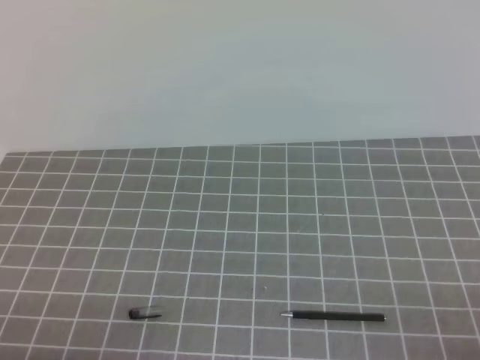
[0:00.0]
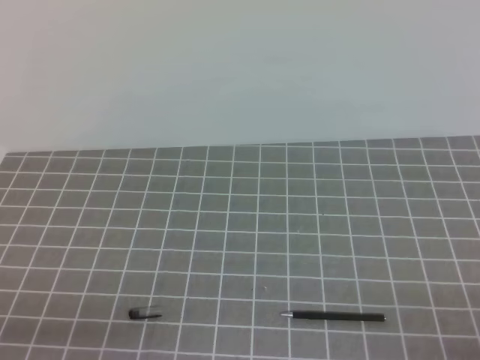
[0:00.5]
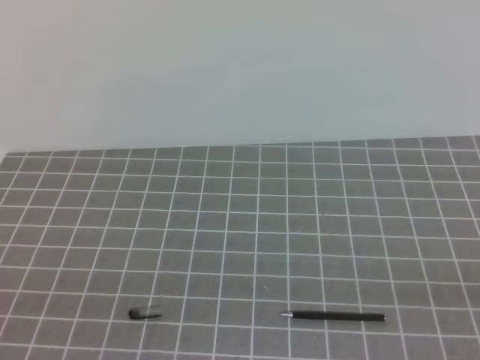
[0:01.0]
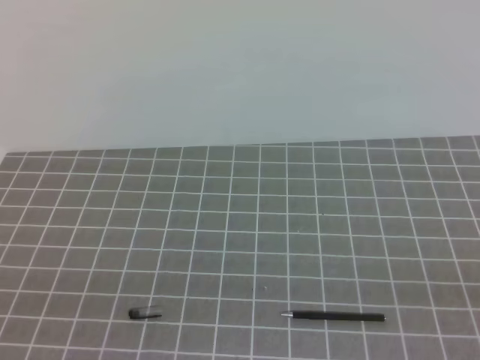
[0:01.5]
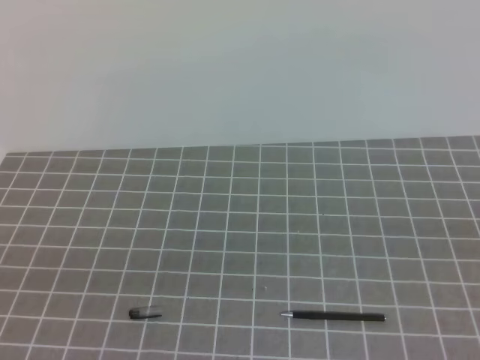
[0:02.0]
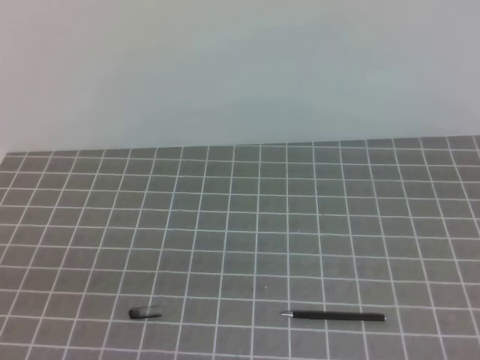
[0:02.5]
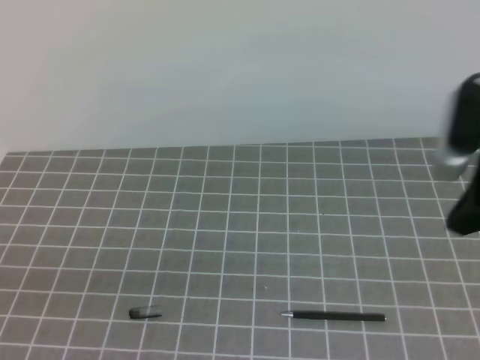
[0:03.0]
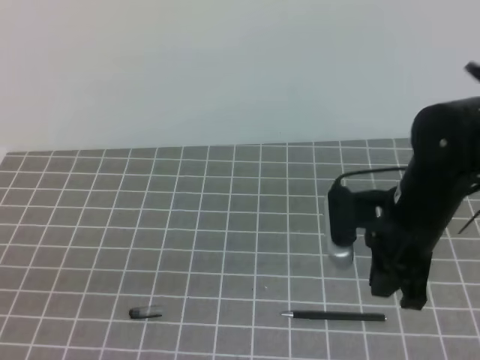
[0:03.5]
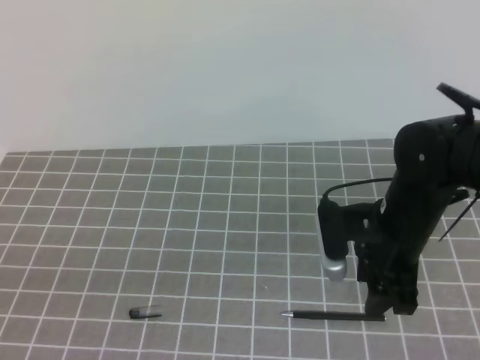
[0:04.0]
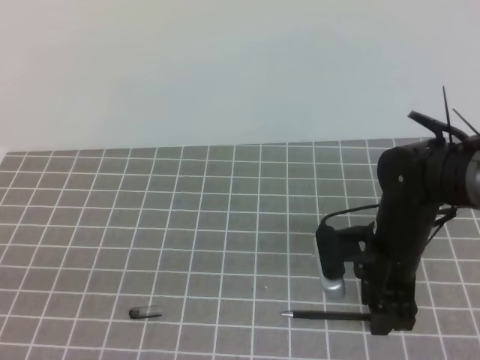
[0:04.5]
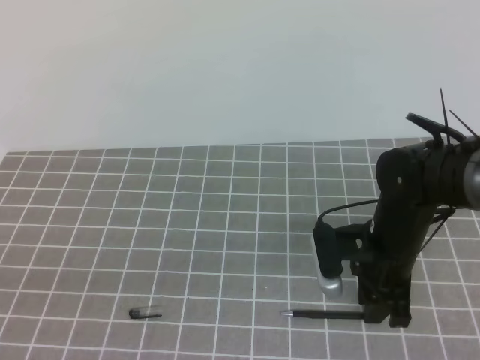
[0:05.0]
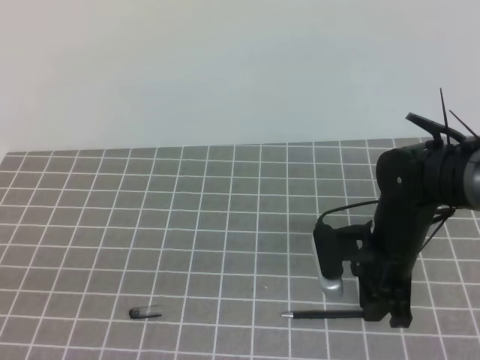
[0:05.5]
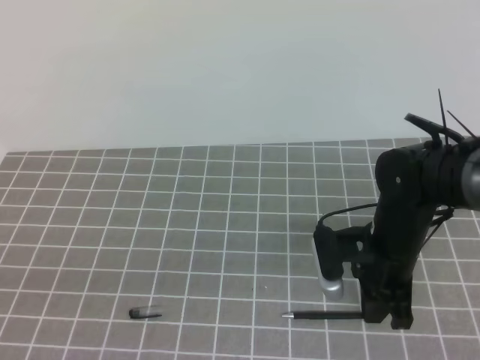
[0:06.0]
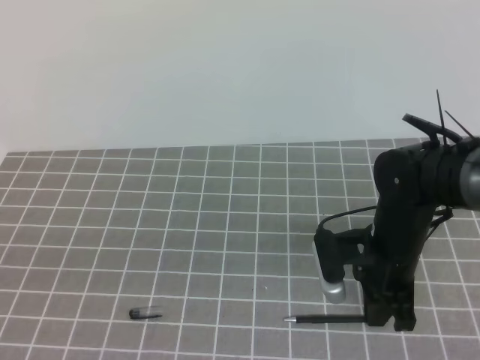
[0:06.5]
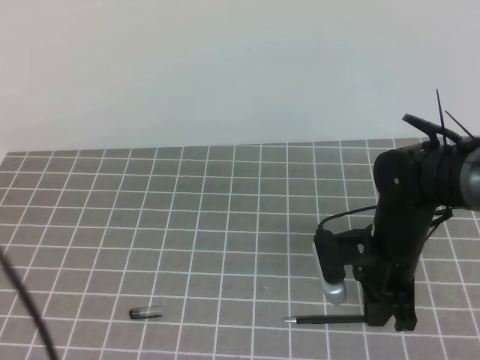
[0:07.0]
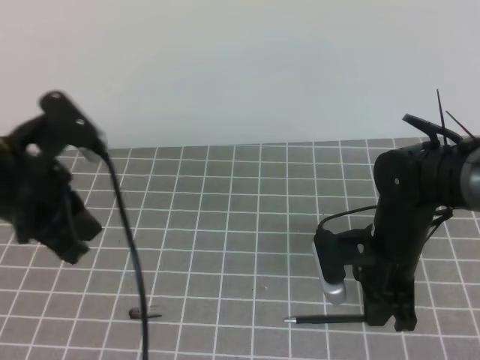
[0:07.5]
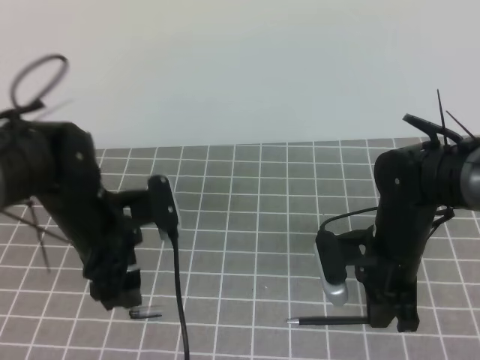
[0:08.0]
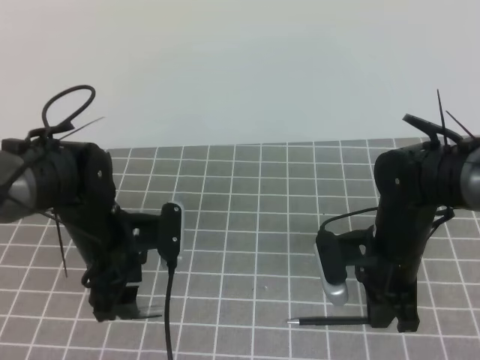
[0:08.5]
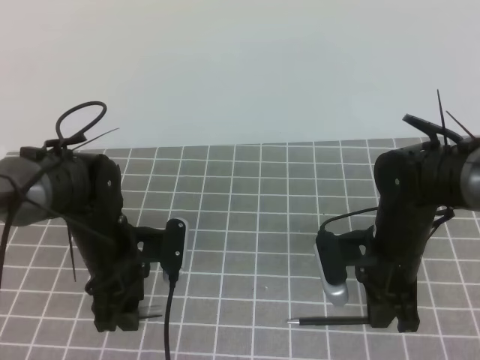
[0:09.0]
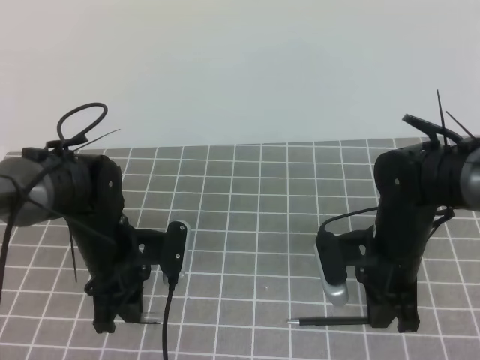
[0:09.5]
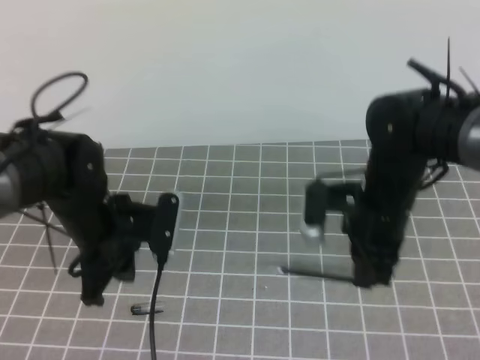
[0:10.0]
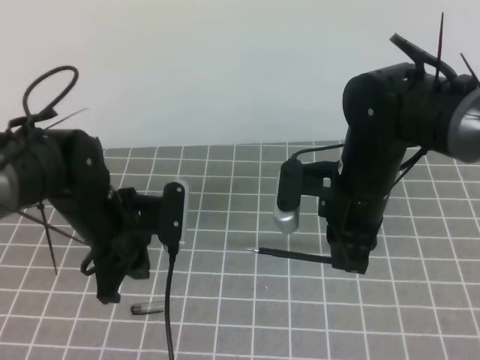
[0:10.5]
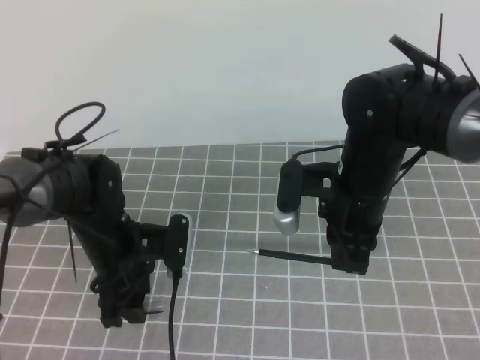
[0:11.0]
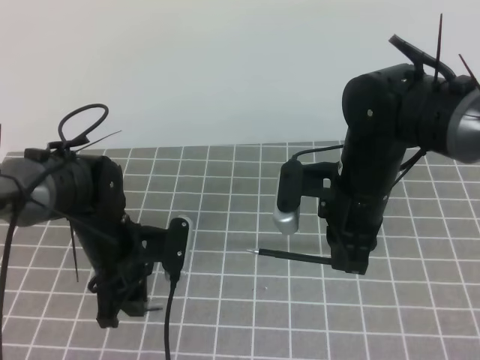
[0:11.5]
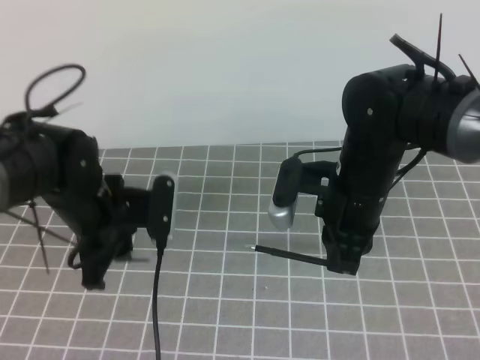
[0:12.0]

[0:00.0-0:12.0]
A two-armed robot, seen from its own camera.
Task of the whole recording: on the grey tablecloth, hold the pen cap in one hand and the pen in the other, then cover the pen cap.
0:02.0 to 0:04.0: The right gripper shifts some 40 cm forward, downward and to the left, and opens up.
0:04.0 to 0:06.0: The right gripper closes up.
0:06.0 to 0:08.0: The left gripper moves forward and to the right, some 30 cm, and opens its fingers.
0:08.0 to 0:10.0: The left gripper closes; the right gripper heads upward, covering approximately 5 cm.
0:10.0 to 0:12.0: The left gripper opens and closes again.

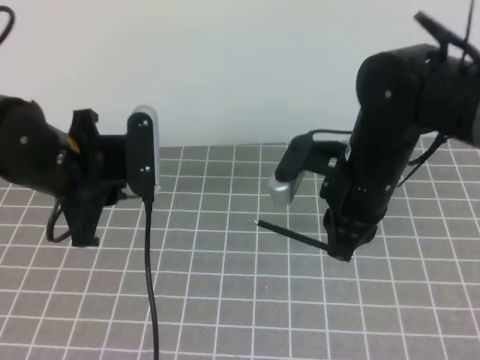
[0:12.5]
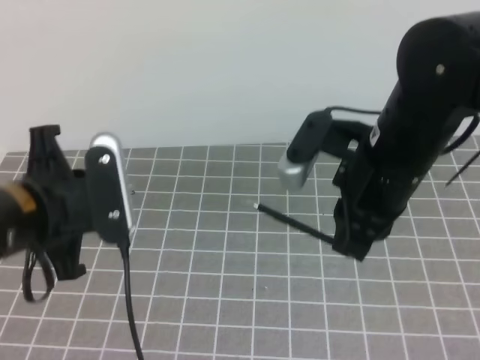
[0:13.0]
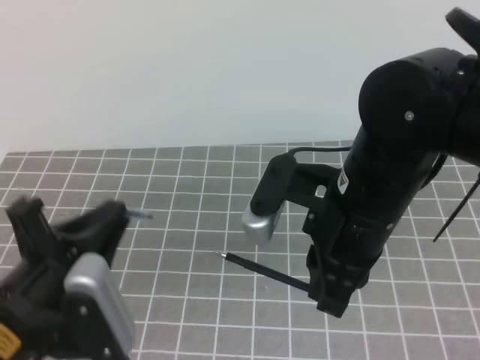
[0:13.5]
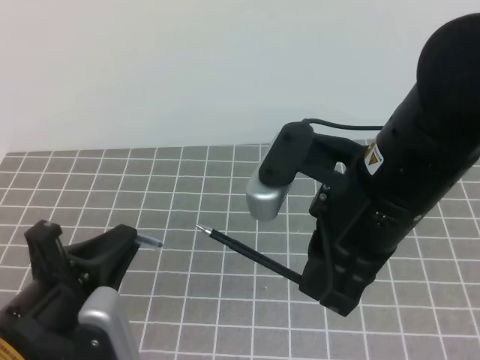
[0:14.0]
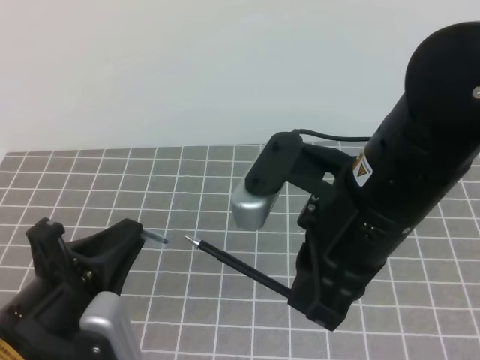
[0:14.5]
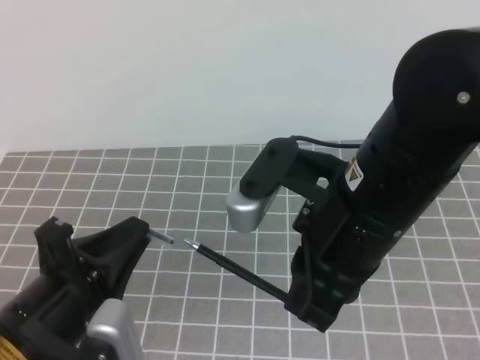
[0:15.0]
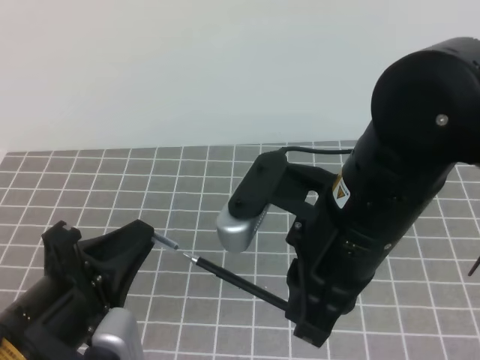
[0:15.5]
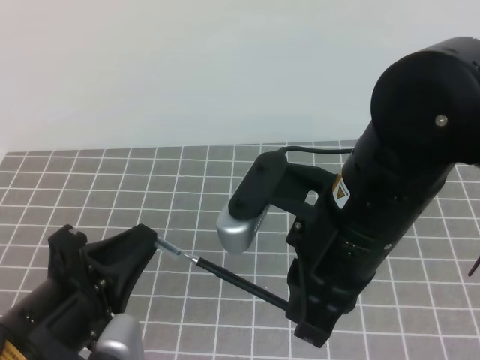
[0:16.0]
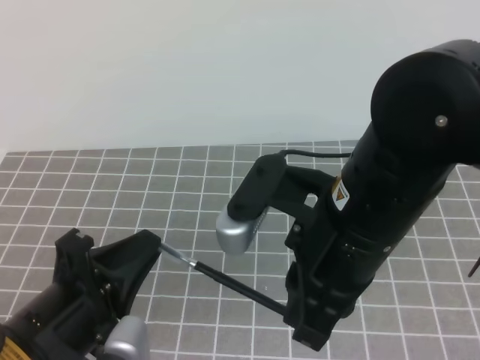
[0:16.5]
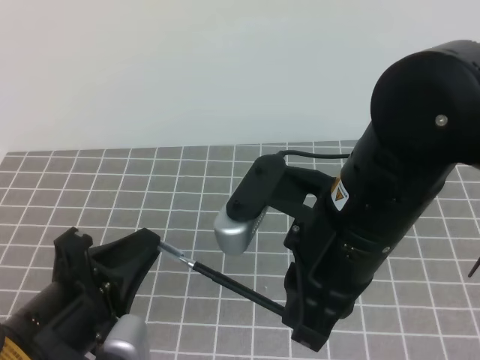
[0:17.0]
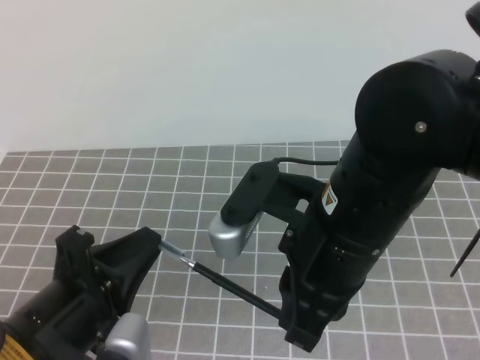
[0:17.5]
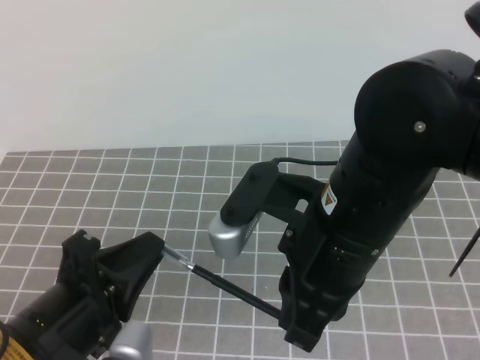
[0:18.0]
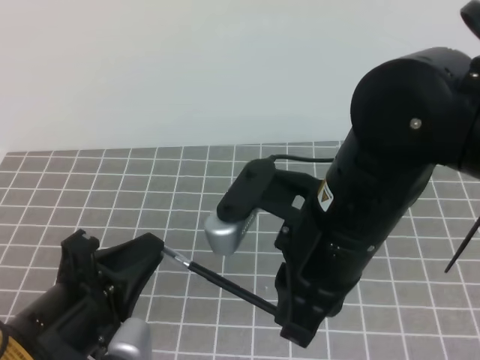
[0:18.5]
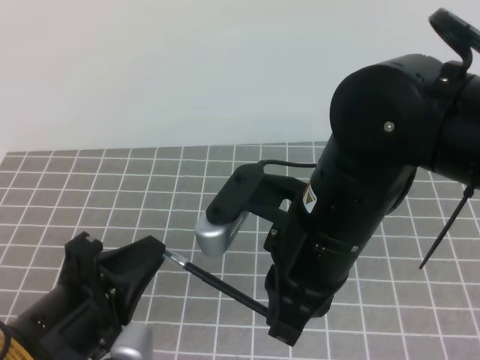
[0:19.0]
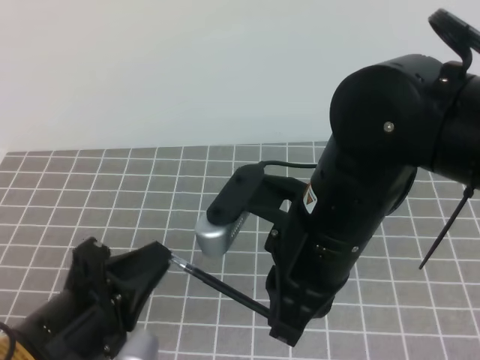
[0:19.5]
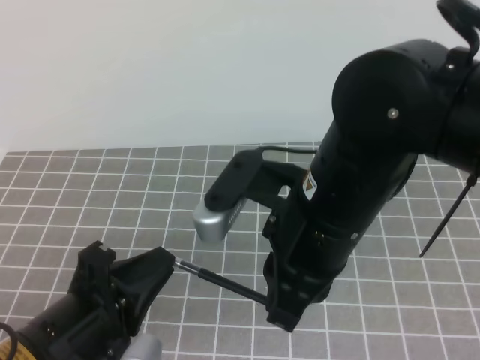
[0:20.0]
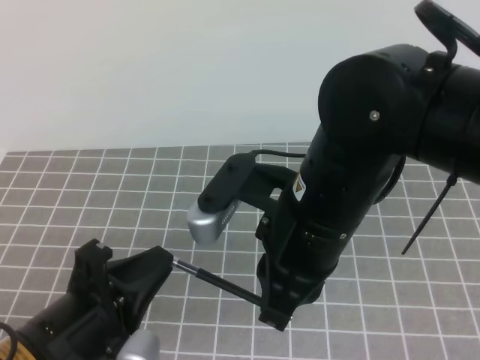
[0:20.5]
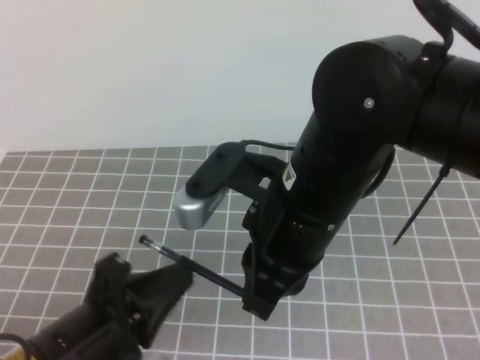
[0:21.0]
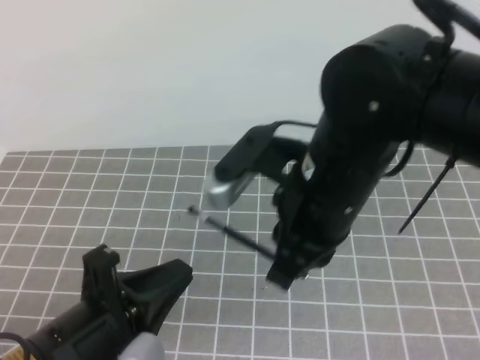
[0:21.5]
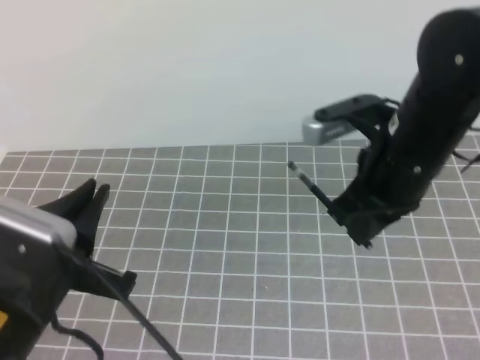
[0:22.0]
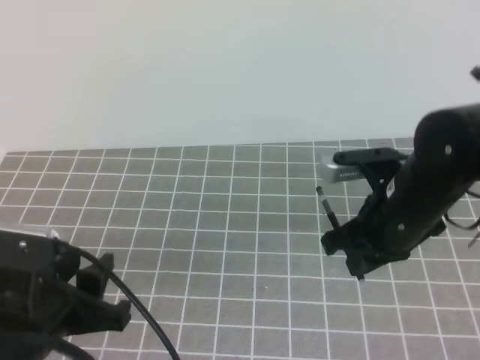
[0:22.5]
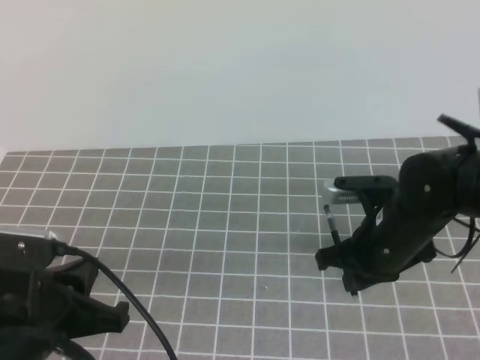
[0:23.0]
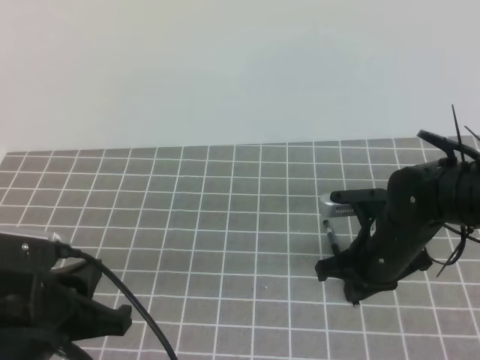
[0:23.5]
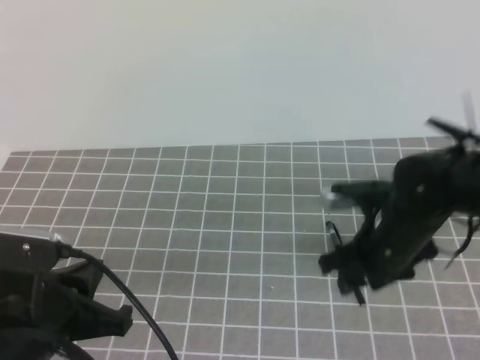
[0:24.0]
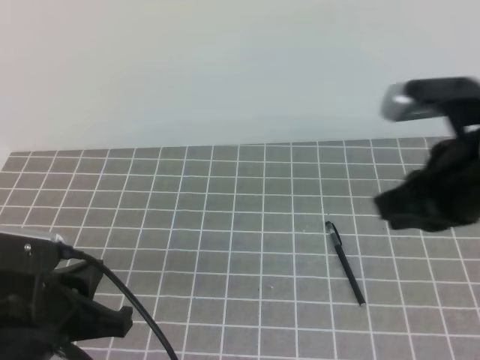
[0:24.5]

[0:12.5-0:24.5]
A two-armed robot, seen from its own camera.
Task of the whole recording: on the grey tablecloth, hold the pen cap in one hand and the pen in the other, then cover the pen cap.
0:12.5 to 0:14.5: The right gripper is displaced backward and upward by approximately 15 cm; the left gripper goes roughly 15 cm backward.
0:14.5 to 0:16.5: There are only small adjustments of the grippers.
0:16.5 to 0:18.5: The two grippers keep their place.
0:18.5 to 0:20.5: The grippers stay close to where they were, moving slightly.
0:20.5 to 0:22.5: The left gripper opens up, while the right gripper is displaced to the right, downward and forward by roughly 15 cm.
0:22.5 to 0:24.5: The left gripper closes its fingers. Meanwhile the right gripper is displaced upward and backward by roughly 10 cm, and opens, then closes once more.

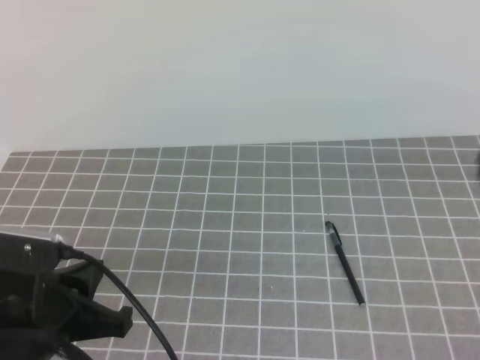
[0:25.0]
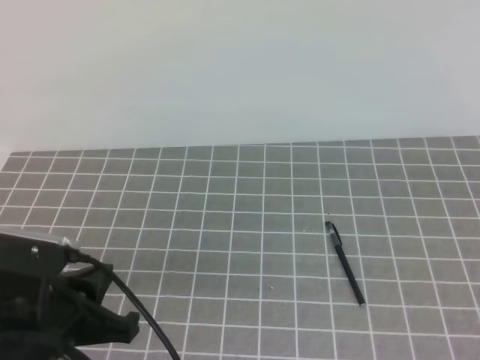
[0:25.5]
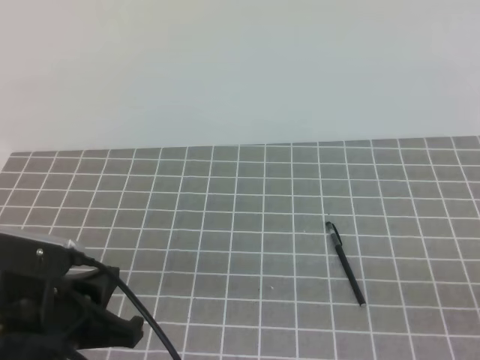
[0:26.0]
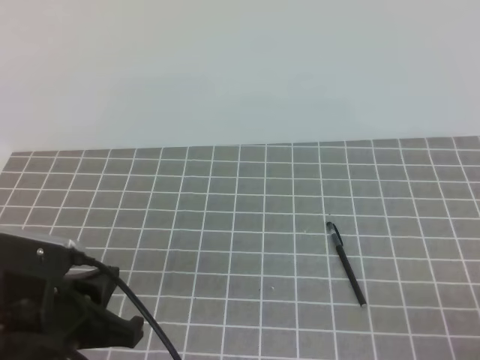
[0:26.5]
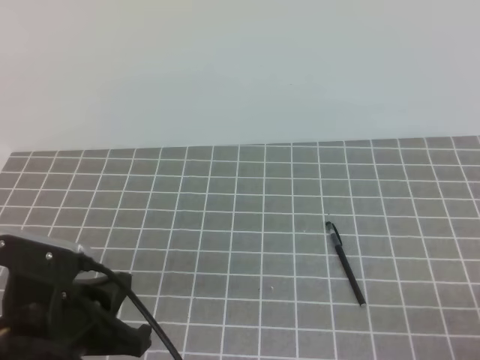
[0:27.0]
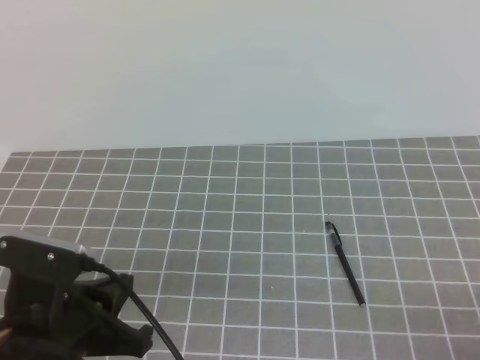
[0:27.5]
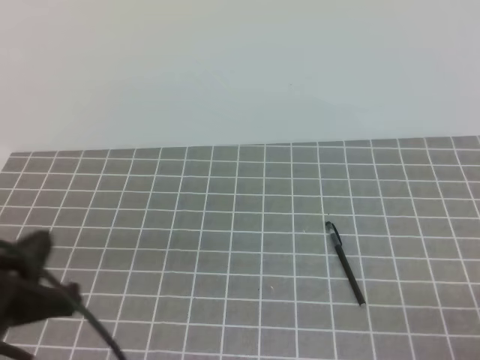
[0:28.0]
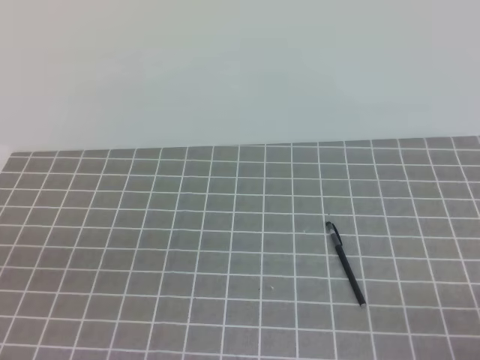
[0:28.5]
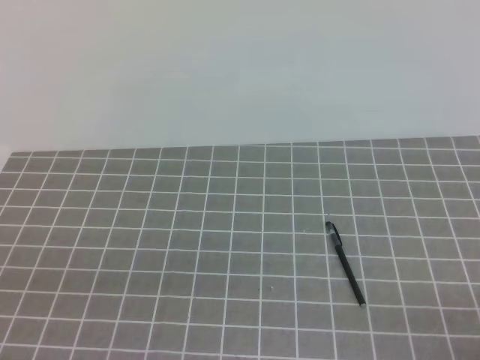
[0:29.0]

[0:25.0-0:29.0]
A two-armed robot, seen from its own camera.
Task of the whole recording: on the grey tablecloth, hold the pen cap in one hand and the pen in the other, then cover the pen cap.
0:25.0 to 0:27.0: The right gripper moves downward, backward and to the right, some 30 cm.
0:27.0 to 0:29.0: The left gripper travels backward, to the left and upward by some 15 cm.
